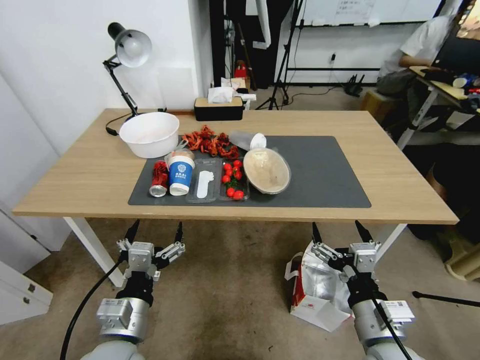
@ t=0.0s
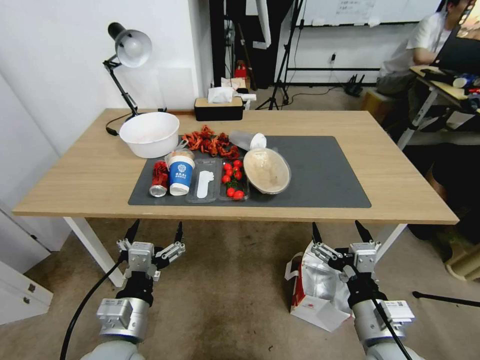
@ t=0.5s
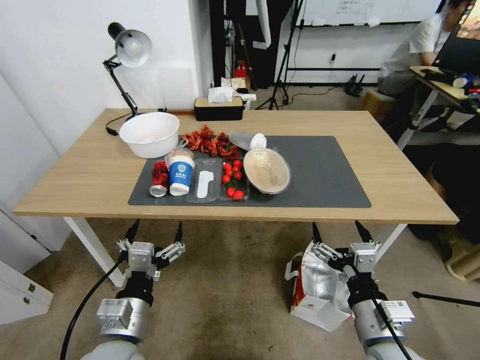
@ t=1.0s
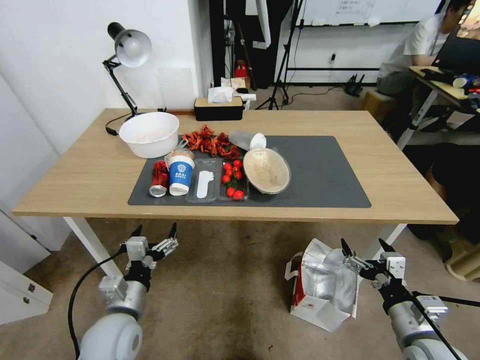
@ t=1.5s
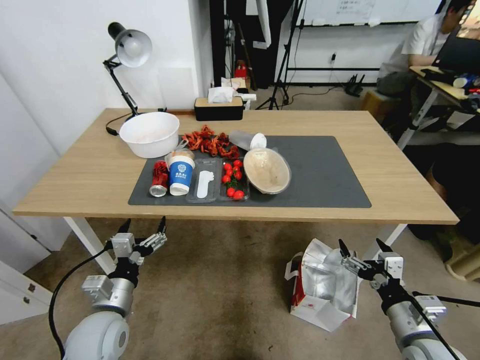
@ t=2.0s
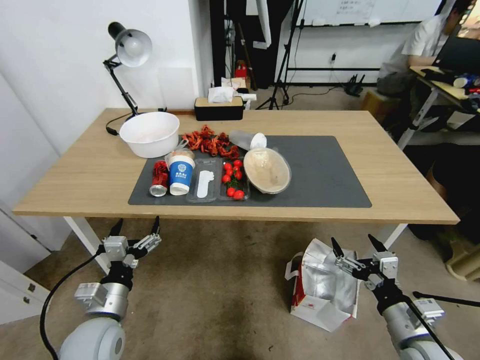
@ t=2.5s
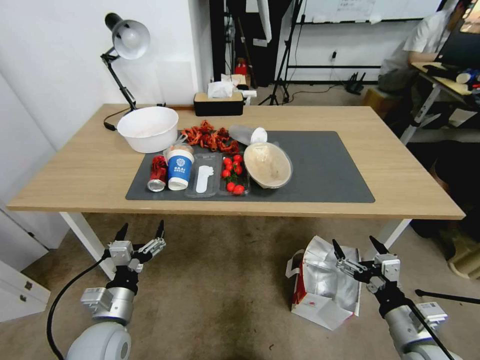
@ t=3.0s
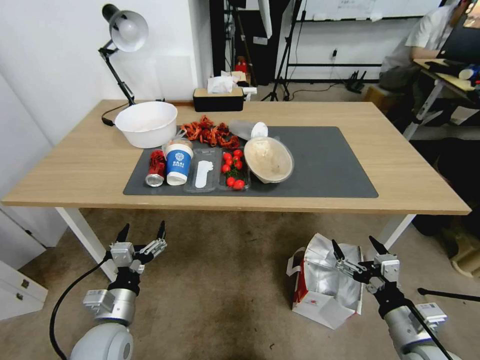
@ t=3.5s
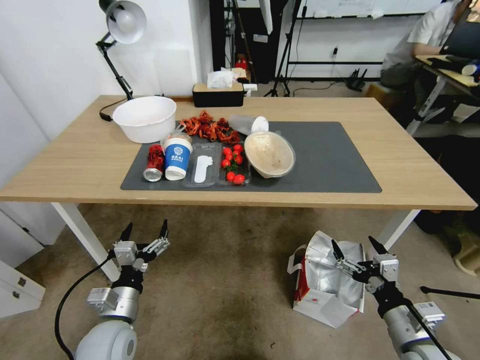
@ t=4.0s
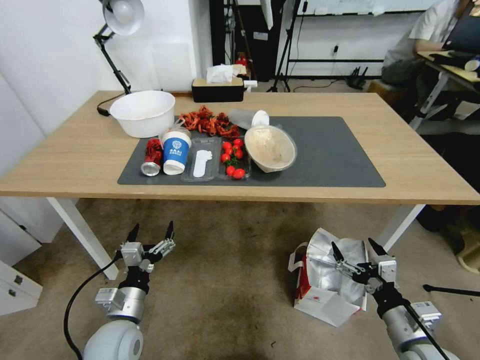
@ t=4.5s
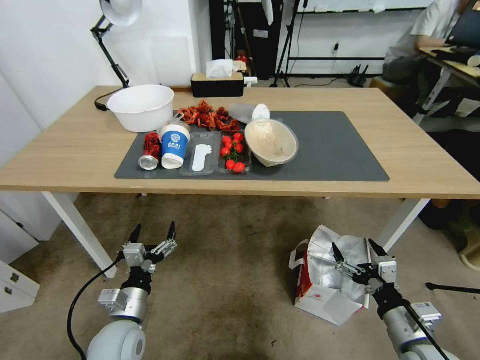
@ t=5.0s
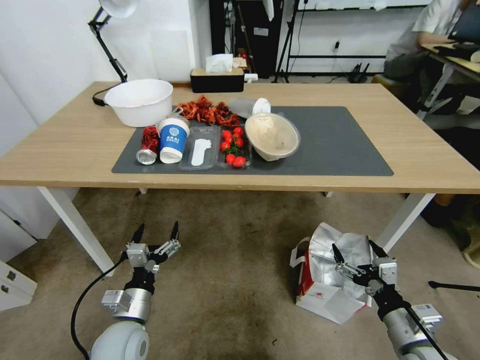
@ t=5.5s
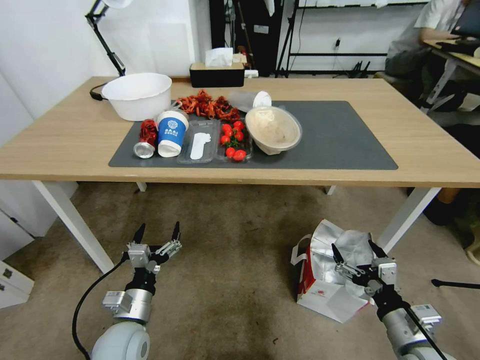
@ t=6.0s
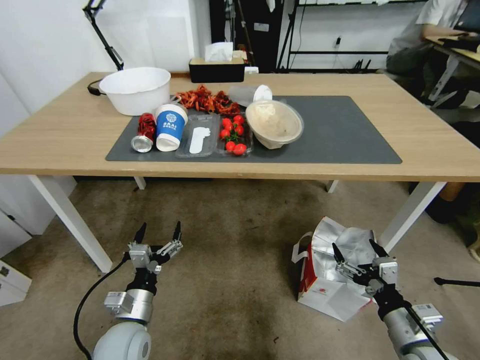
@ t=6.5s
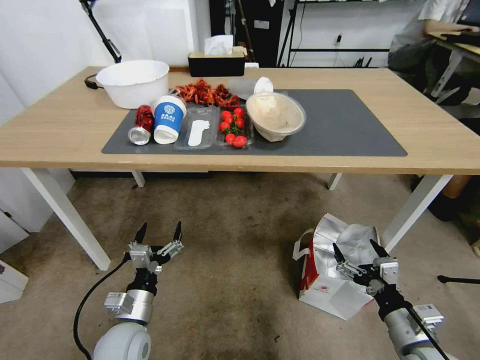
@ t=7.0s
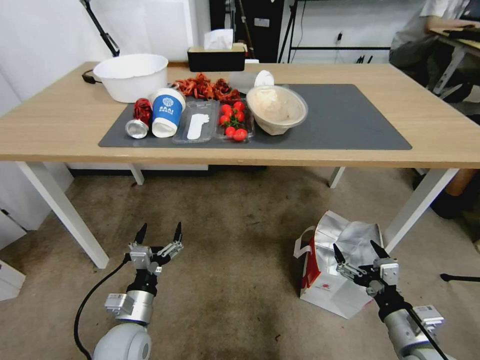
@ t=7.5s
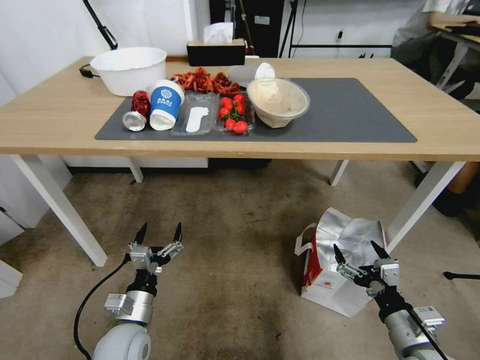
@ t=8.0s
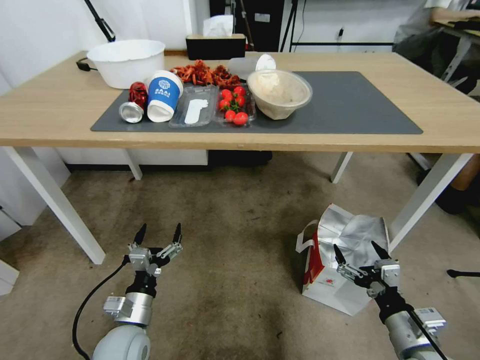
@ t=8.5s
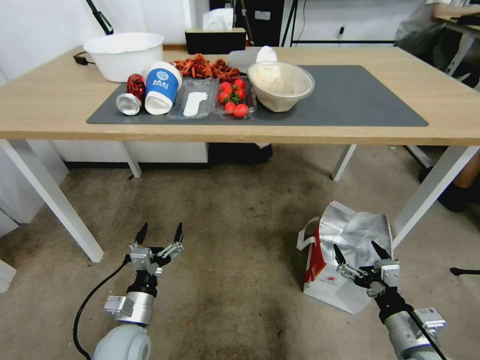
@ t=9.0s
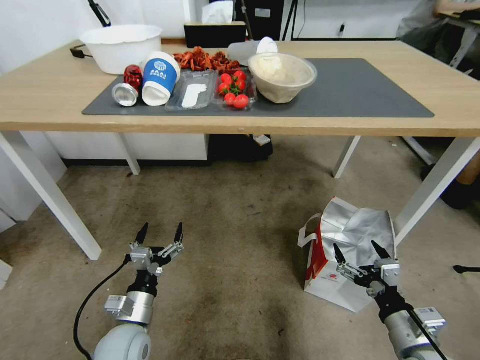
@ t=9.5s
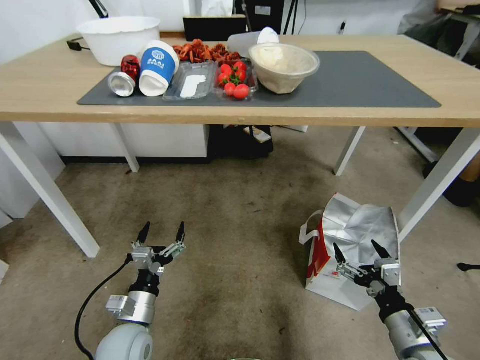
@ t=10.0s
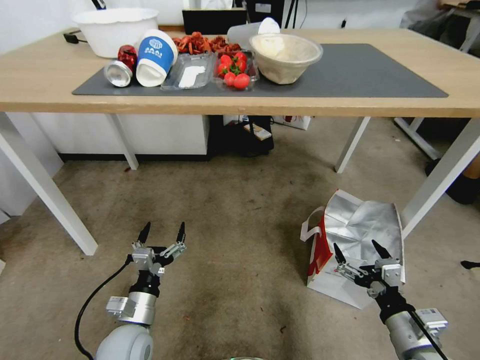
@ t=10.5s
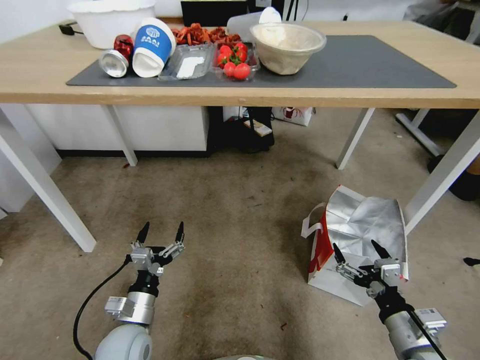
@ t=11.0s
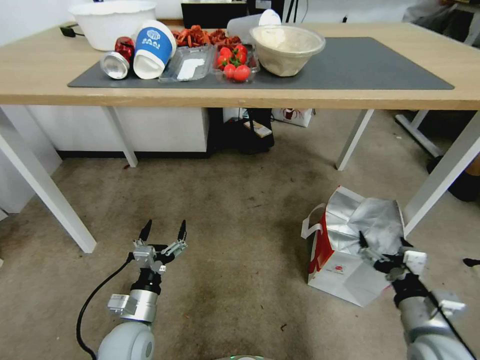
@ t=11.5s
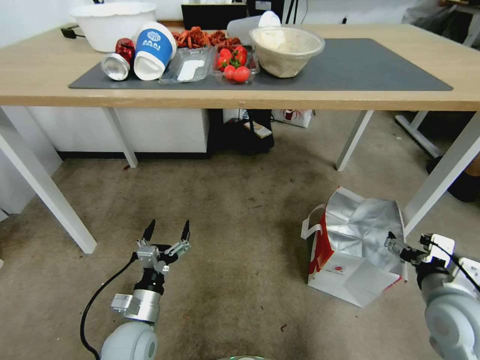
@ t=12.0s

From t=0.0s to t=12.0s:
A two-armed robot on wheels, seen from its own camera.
Task of the whole recording: Pick up the food delivery bag from the floor and place it on the table.
From t=10.0s to t=12.0s: The right gripper goes approximately 10 cm upward and forward.

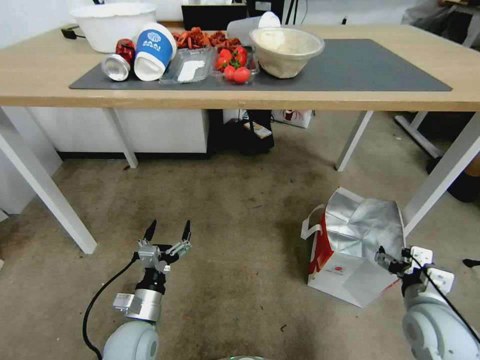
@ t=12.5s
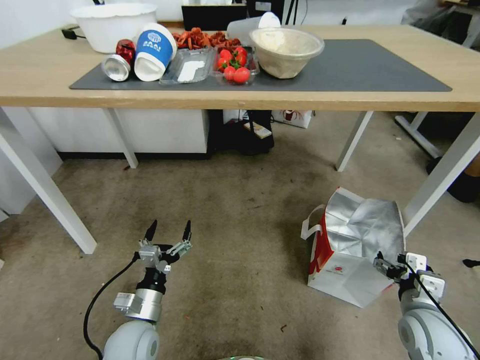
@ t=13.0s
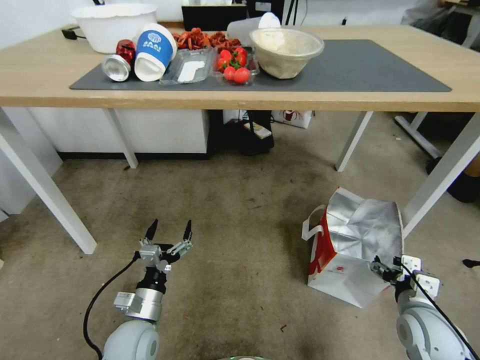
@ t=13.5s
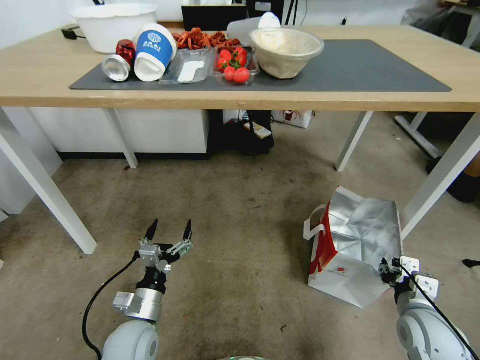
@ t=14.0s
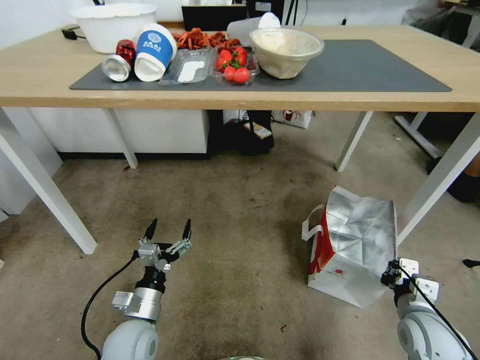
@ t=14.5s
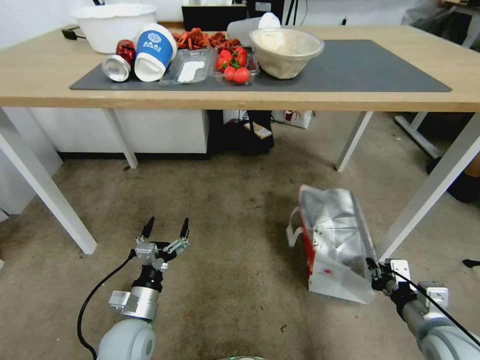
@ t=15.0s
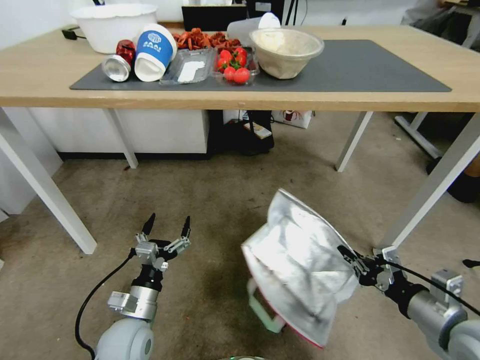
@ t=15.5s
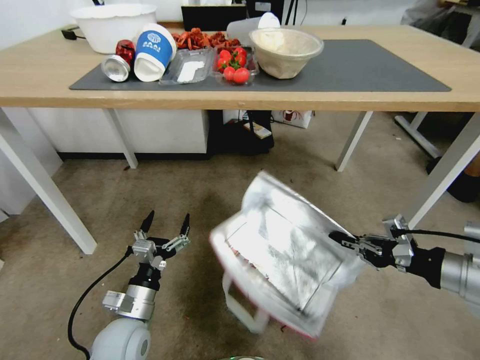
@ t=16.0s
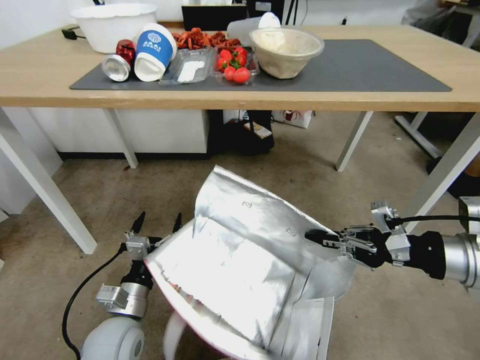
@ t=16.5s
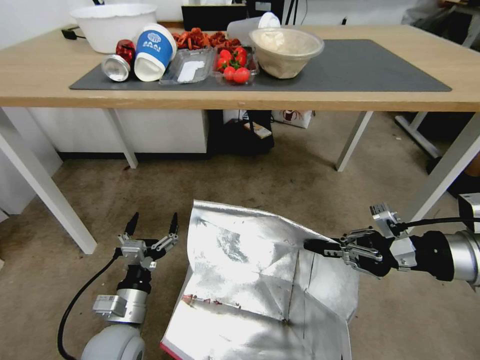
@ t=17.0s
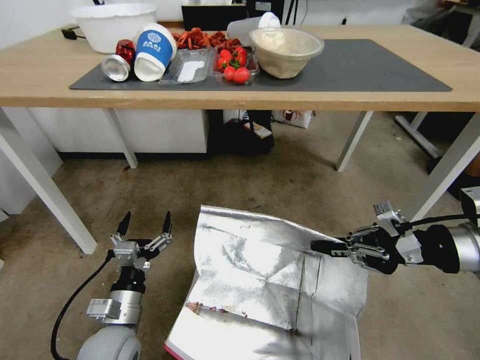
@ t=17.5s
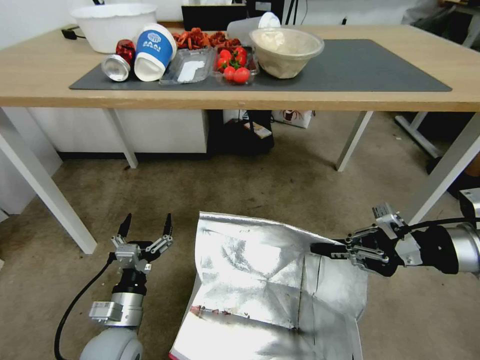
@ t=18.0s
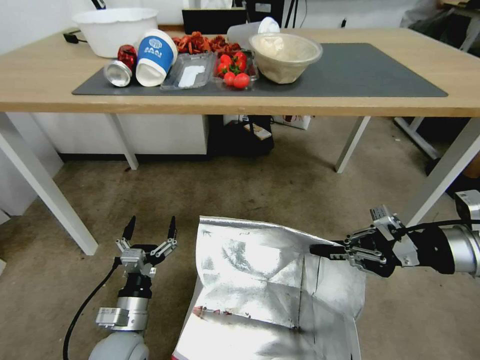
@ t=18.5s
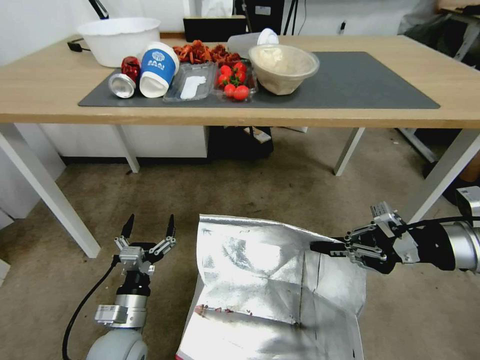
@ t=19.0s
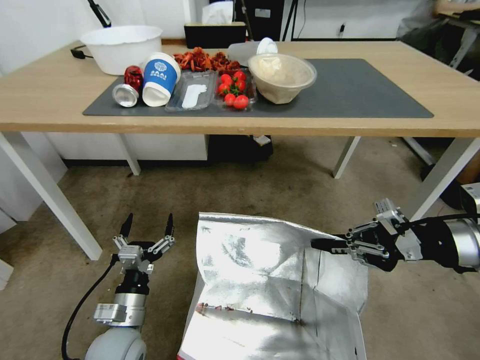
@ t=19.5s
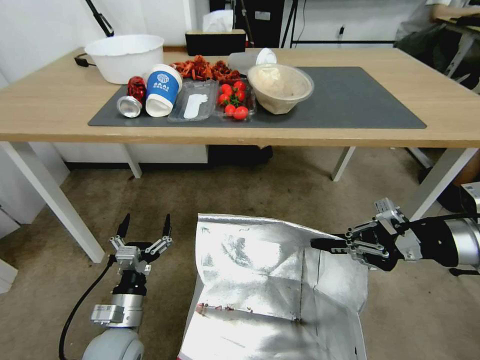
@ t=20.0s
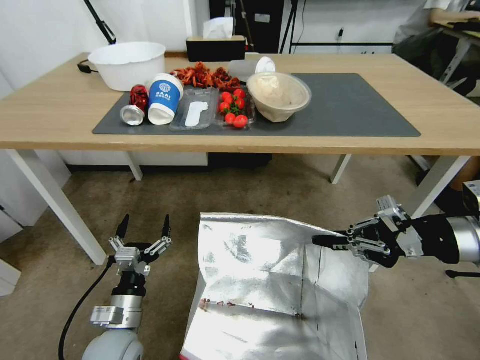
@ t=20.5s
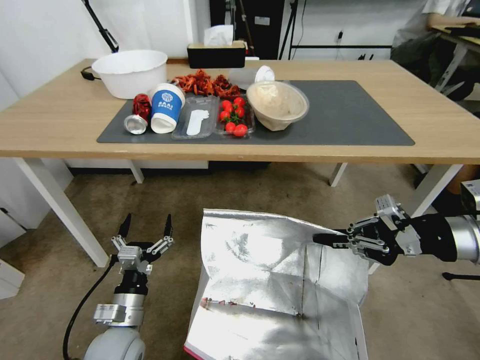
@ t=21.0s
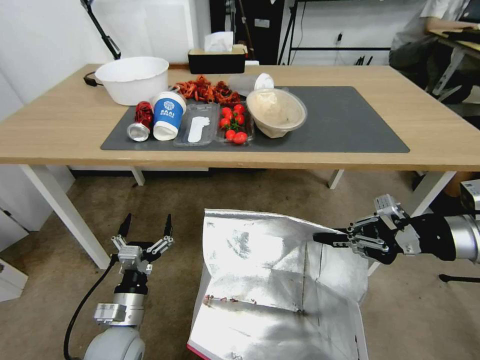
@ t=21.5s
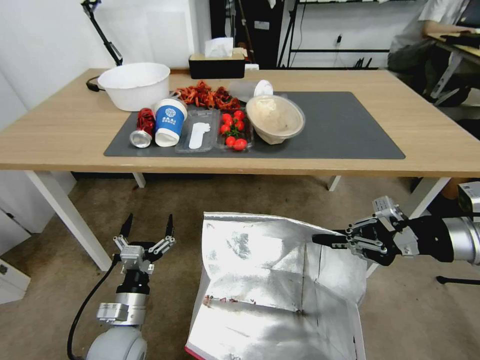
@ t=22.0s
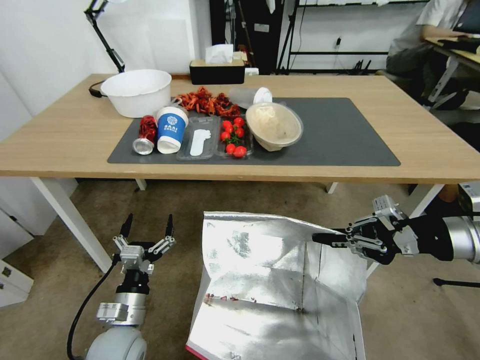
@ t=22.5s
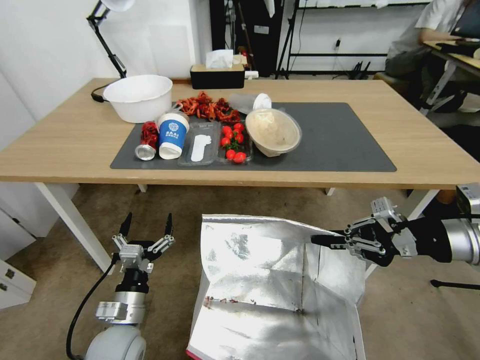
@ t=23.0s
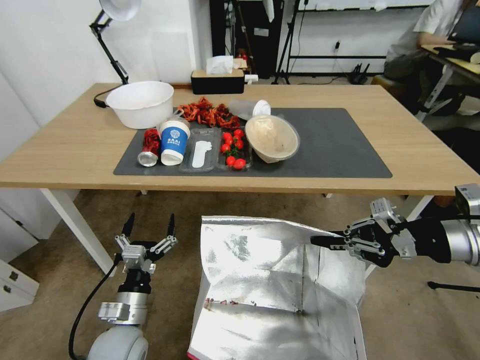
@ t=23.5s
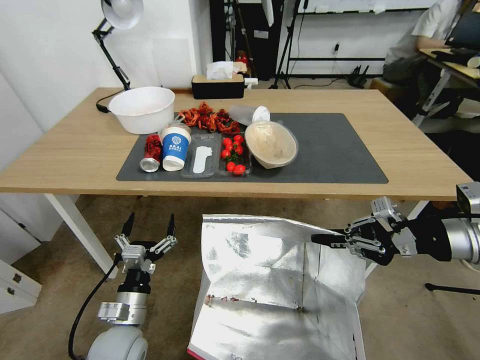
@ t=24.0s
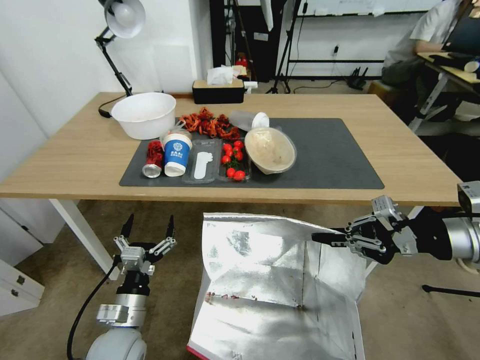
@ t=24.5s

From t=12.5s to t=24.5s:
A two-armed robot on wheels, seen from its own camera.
Task of the whole recording: Pick up the food delivery bag from the floor and place it on the table.
From t=12.5s to t=14.5s: The right gripper closes its fingers.
From t=14.5s to t=16.5s: The right gripper travels upward by approximately 25 cm.

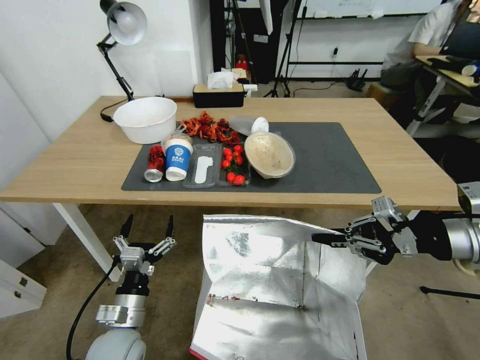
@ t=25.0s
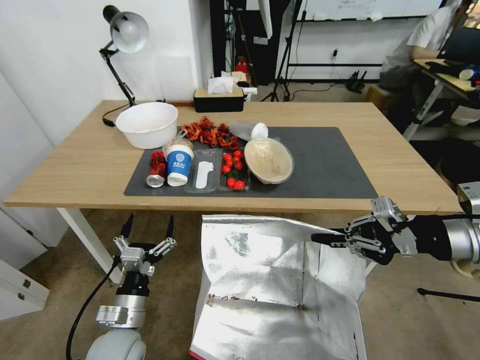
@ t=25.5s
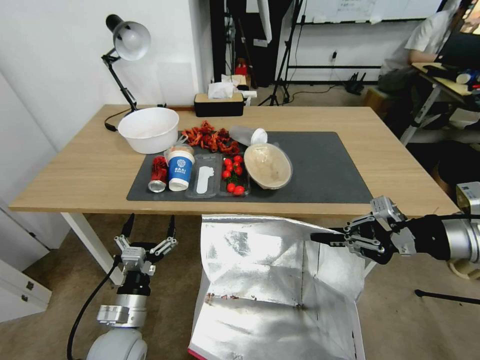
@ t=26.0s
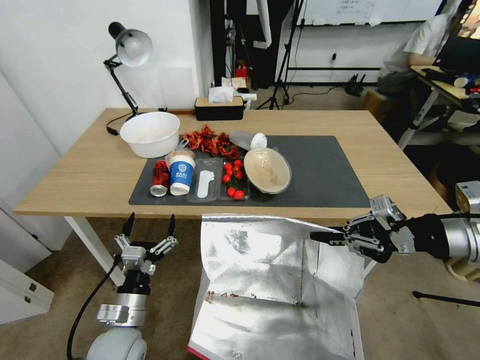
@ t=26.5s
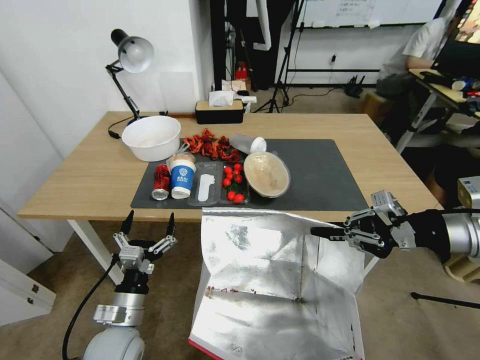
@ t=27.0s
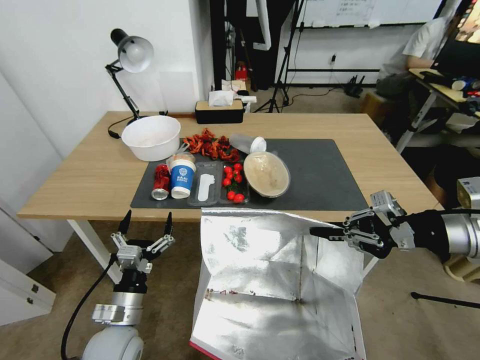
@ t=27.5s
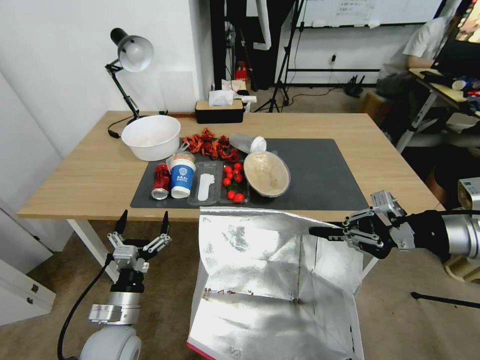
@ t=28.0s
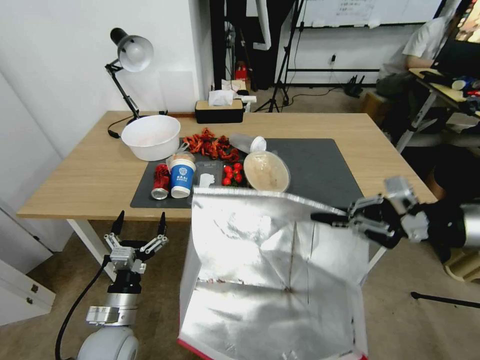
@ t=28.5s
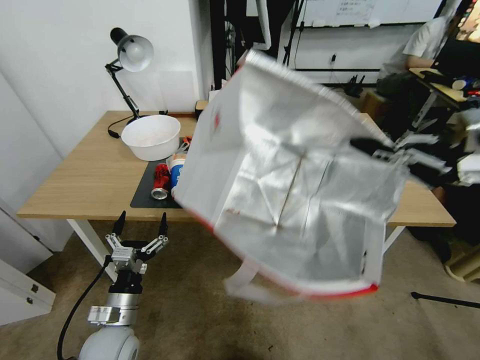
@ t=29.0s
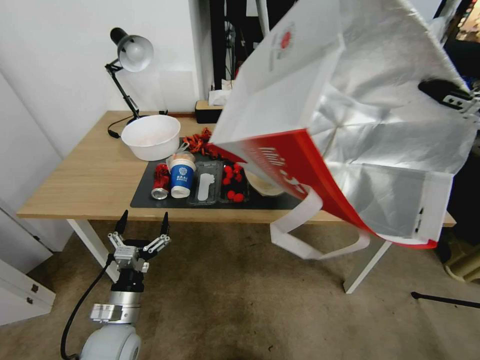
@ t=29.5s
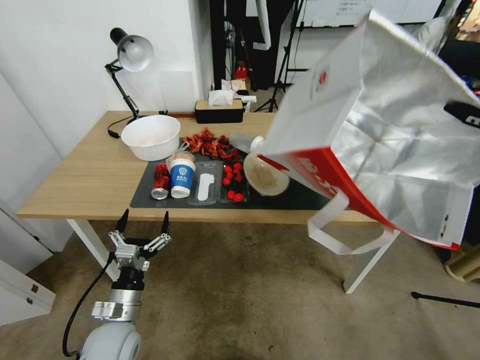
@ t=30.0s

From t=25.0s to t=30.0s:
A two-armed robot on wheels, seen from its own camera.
Task of the whole recording: Pick up the food delivery bag from the floor and place it on the table.
From t=27.5s to t=30.0s: The right gripper is displaced to the right and upward by about 20 cm.
